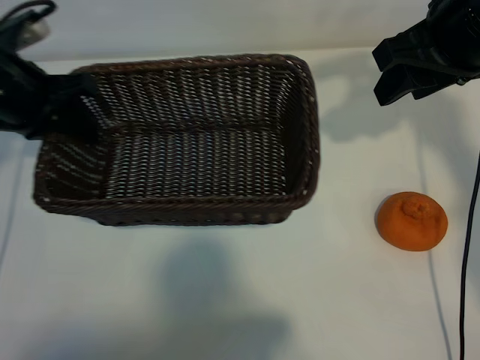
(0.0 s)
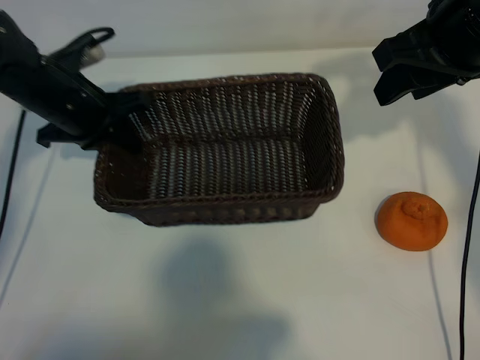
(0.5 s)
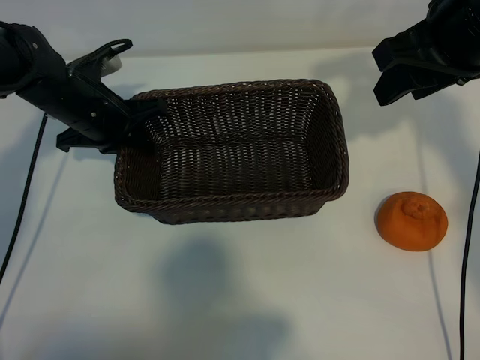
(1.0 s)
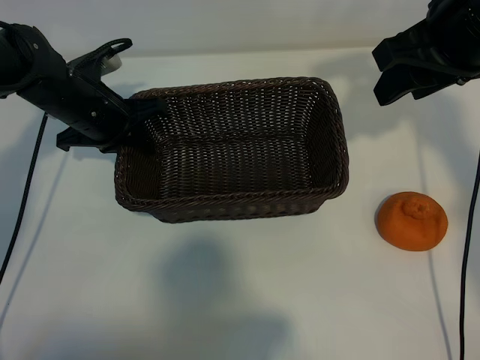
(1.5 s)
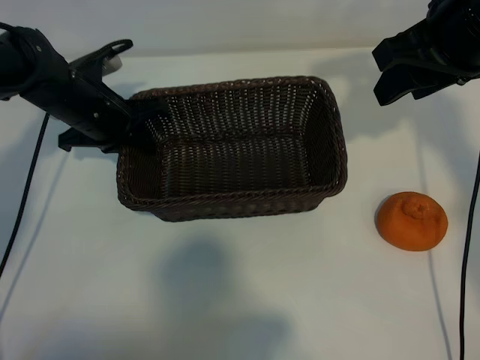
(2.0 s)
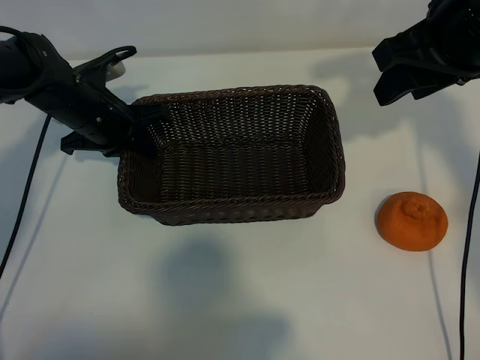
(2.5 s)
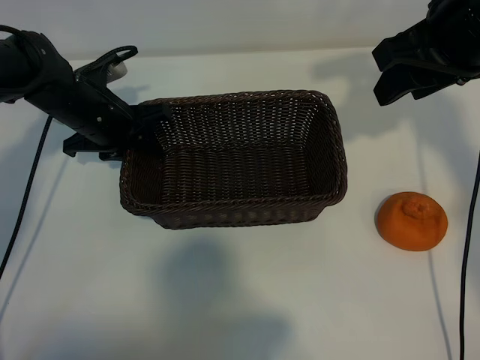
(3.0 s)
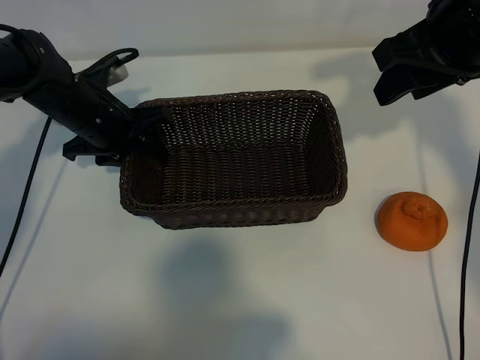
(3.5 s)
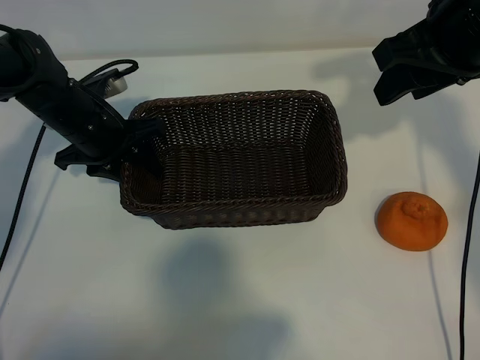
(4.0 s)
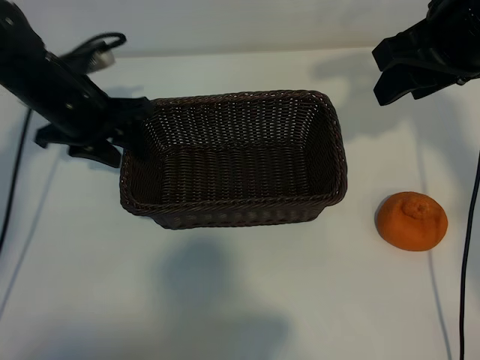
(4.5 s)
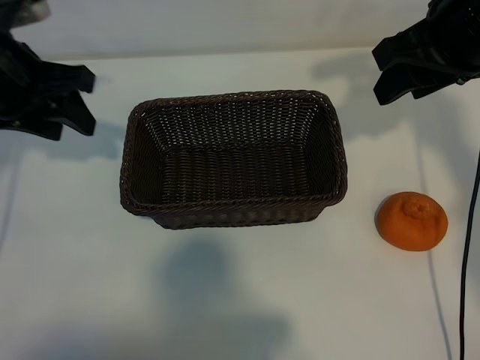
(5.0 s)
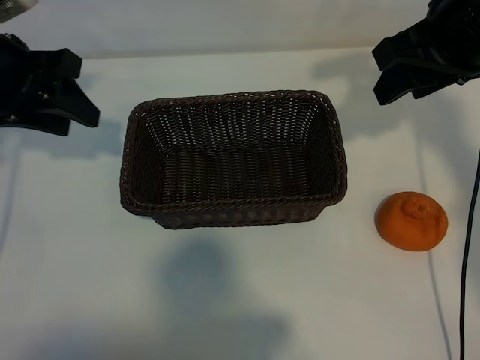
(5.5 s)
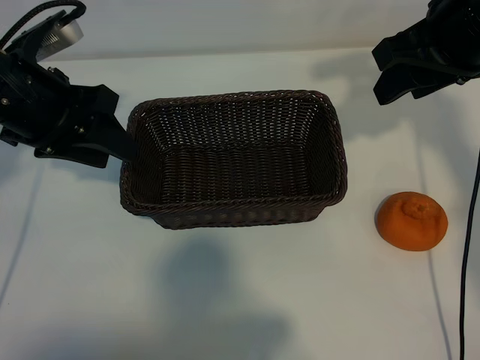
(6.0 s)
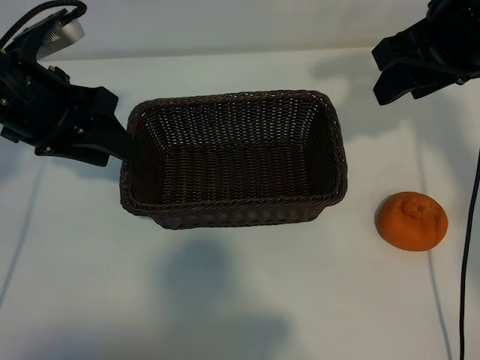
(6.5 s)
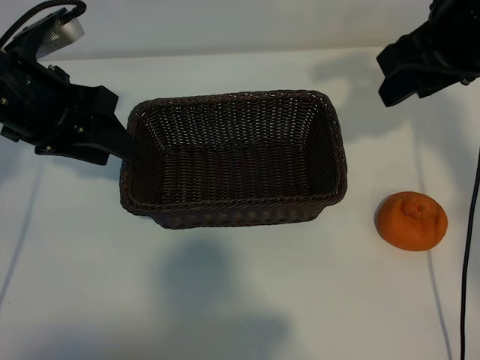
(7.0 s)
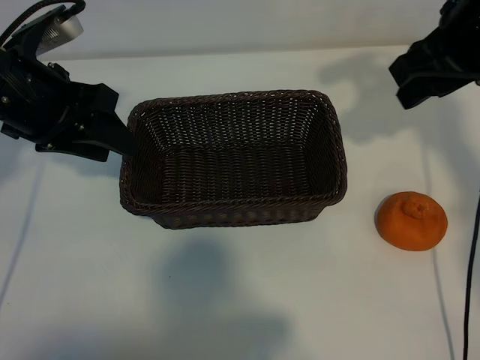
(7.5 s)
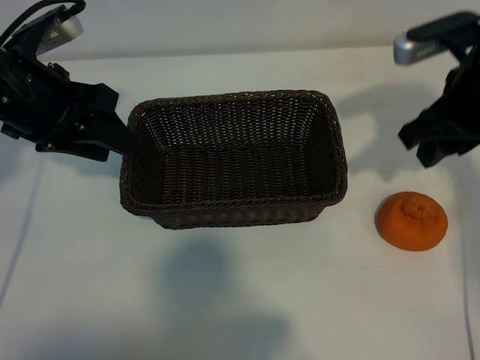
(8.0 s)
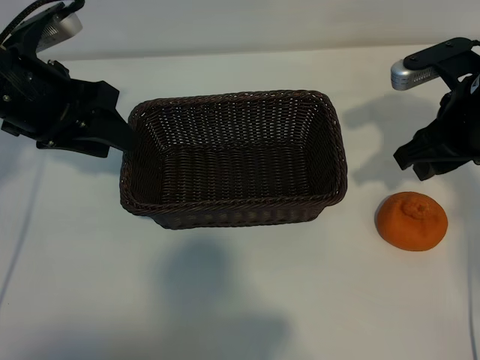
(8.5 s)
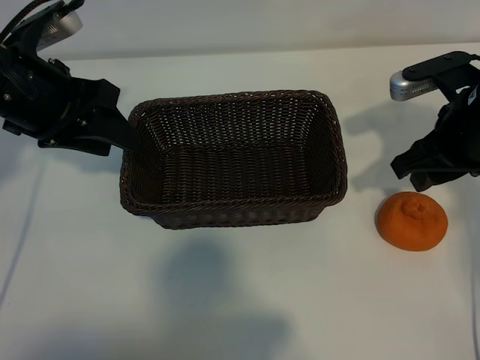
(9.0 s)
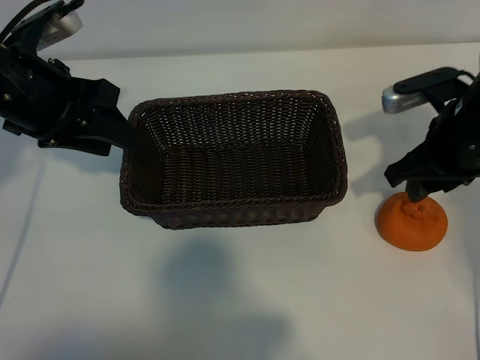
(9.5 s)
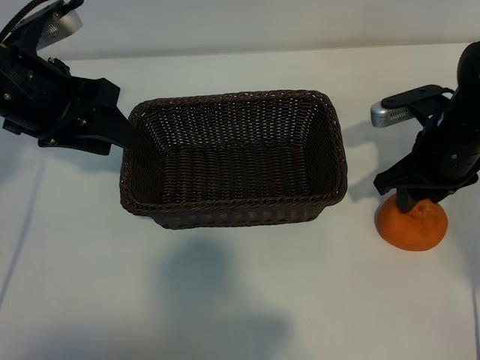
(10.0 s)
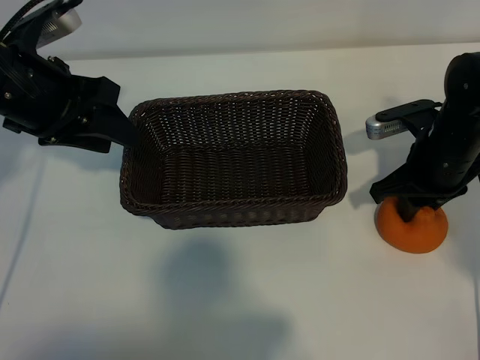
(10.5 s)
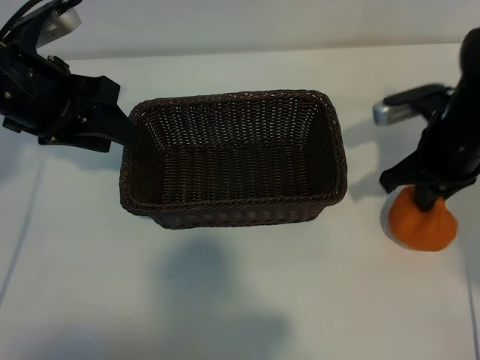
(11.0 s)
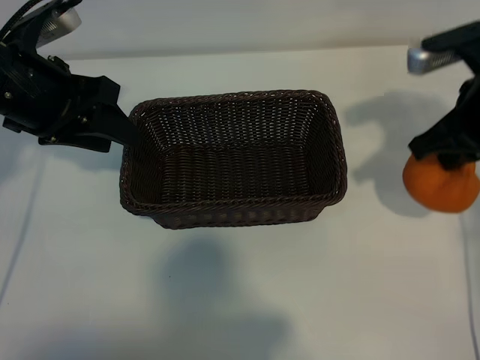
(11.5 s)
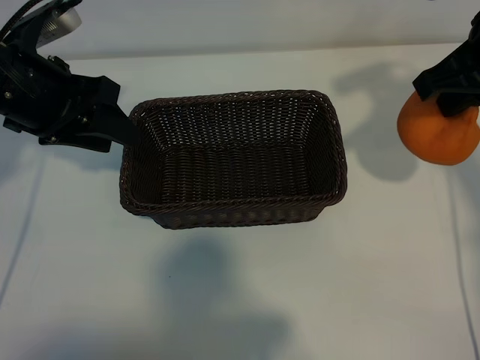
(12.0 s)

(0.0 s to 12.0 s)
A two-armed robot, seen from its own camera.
Task of the whole recording: pick up the orange and put it into the basket.
Step, 0.0 s - 2.5 s: Place the basket in the center of view with left gripper.
Step, 3.5 s - 10.5 s: Grasp the orange with right gripper.

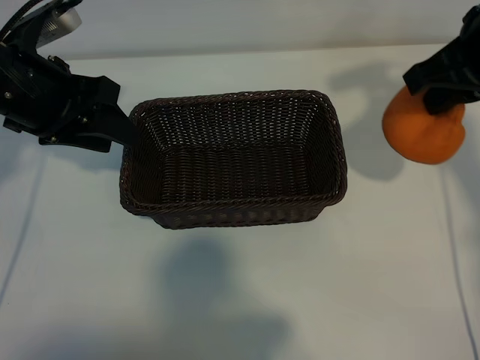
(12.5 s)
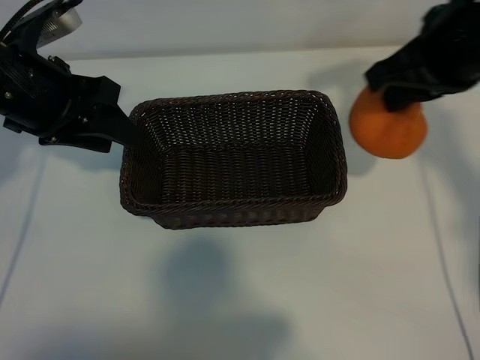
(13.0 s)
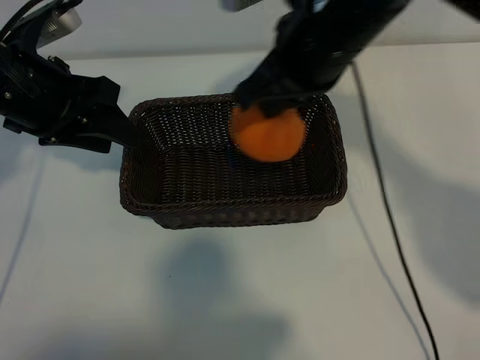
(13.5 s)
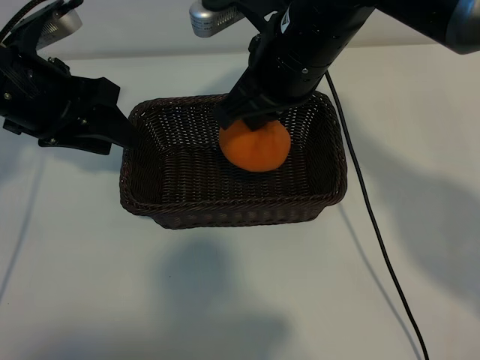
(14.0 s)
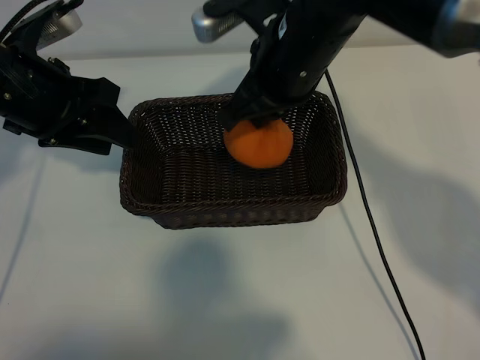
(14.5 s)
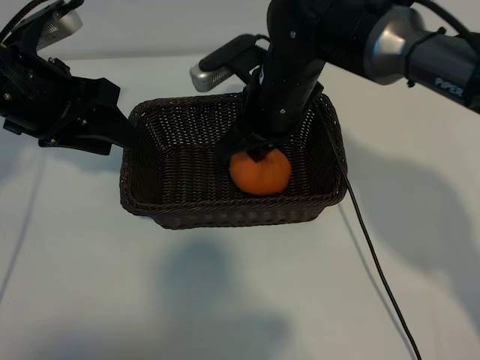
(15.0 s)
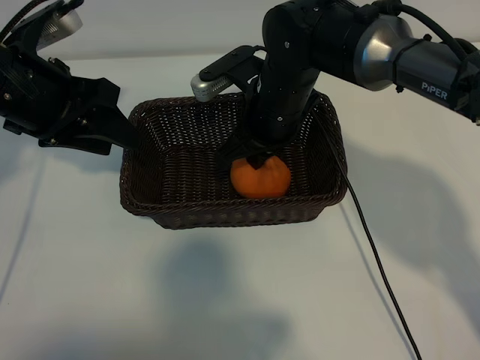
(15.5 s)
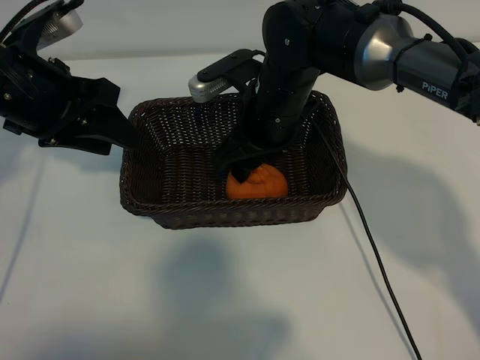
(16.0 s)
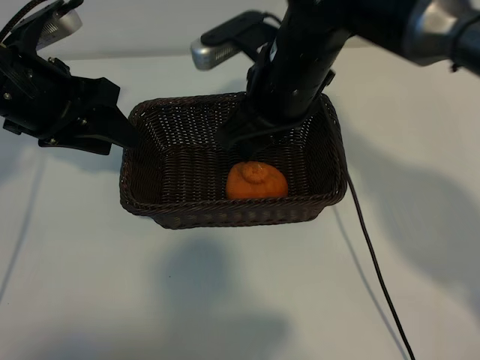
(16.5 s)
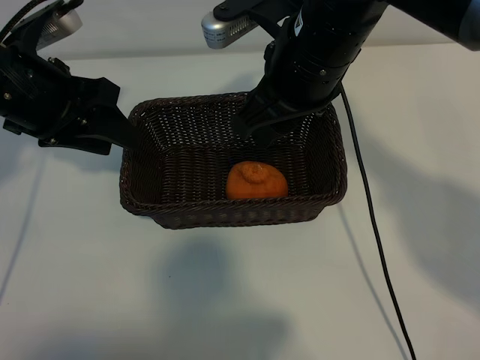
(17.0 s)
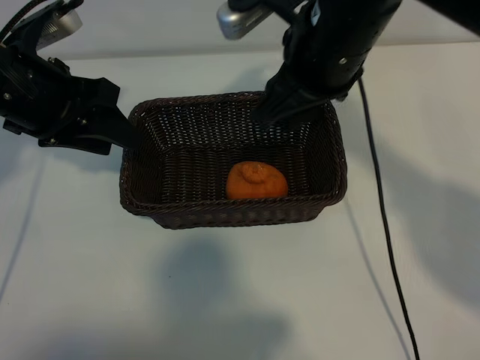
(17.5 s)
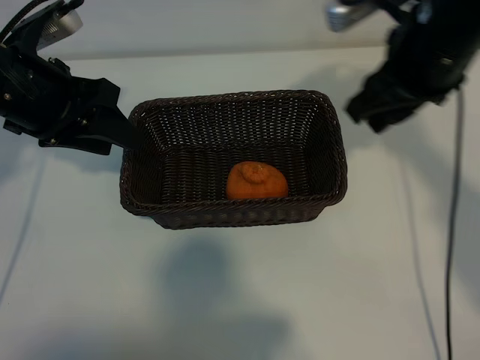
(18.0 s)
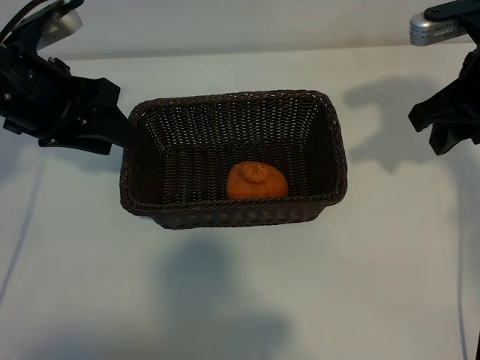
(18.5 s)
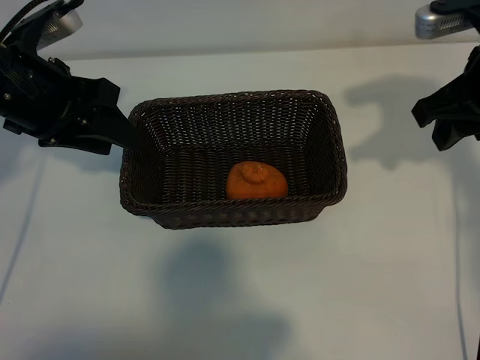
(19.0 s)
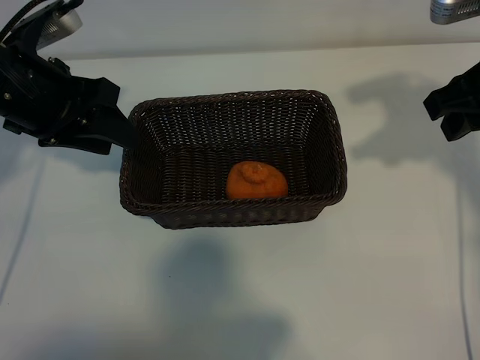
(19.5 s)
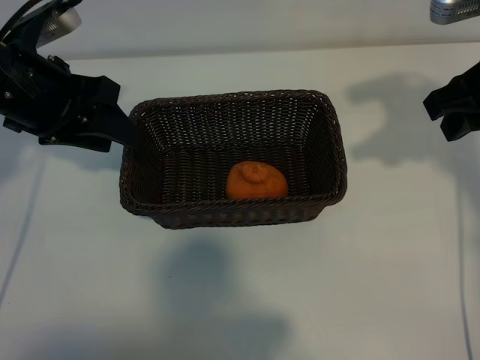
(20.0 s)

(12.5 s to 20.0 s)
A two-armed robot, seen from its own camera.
Task of the whole recording: pick up the orange and put it into the basket.
Step, 12.5 s - 15.5 s: Place the orange in the basket with right gripper.
